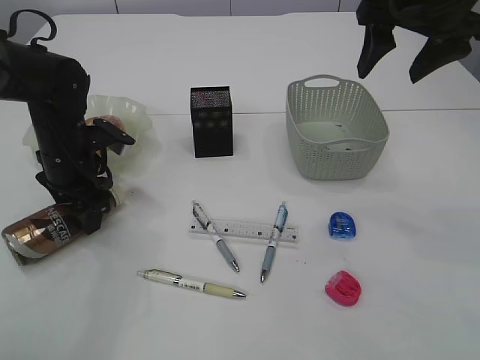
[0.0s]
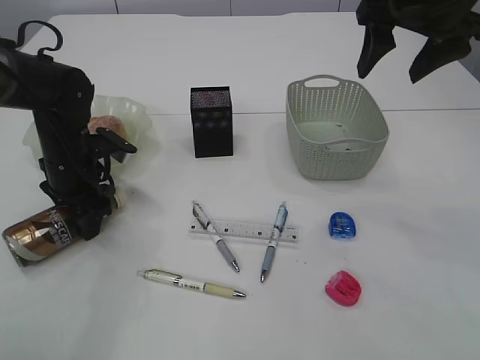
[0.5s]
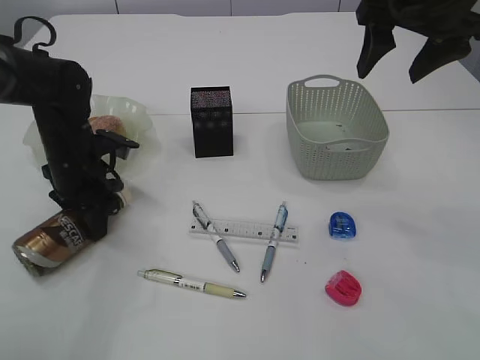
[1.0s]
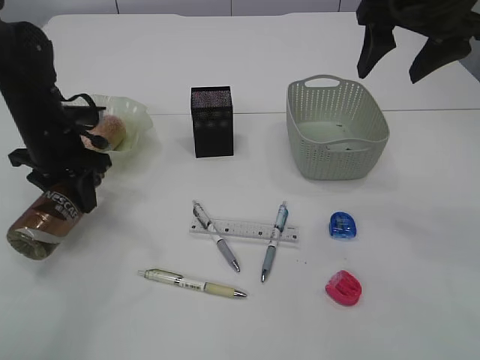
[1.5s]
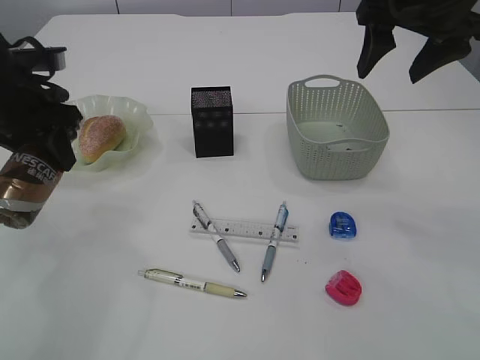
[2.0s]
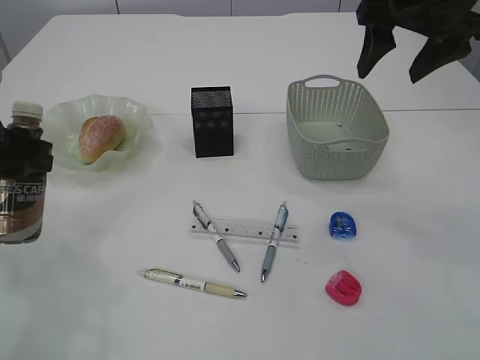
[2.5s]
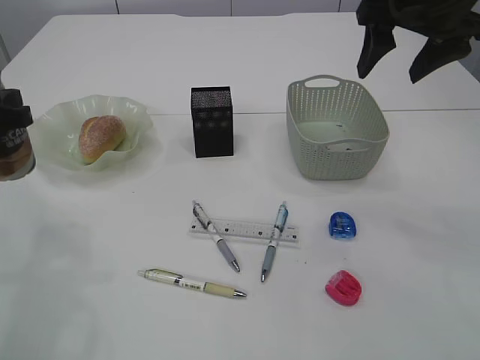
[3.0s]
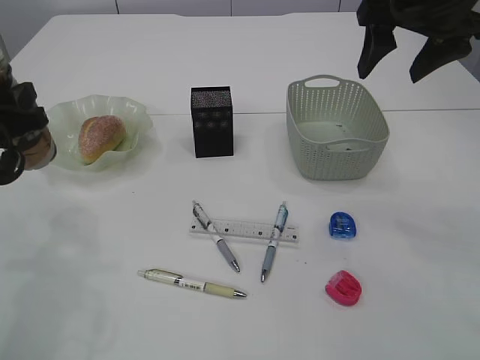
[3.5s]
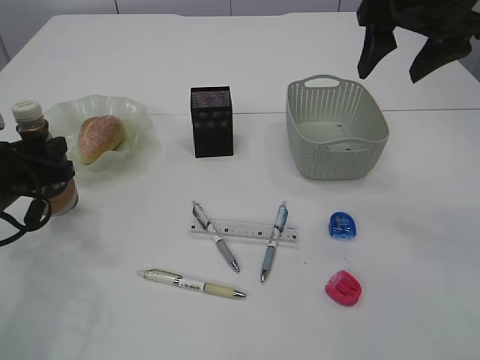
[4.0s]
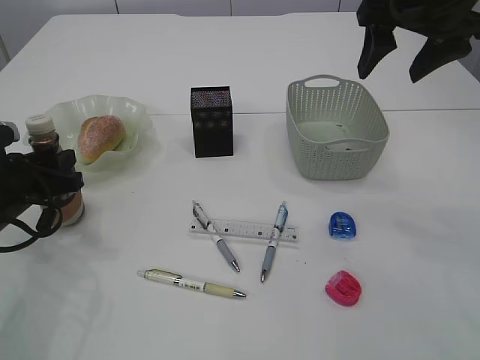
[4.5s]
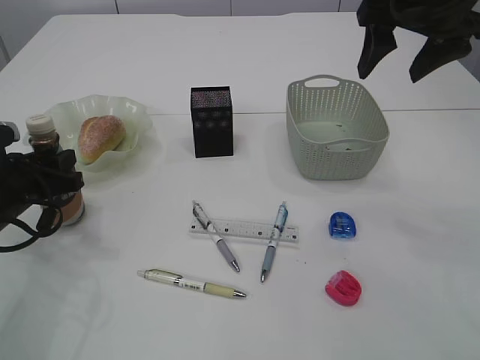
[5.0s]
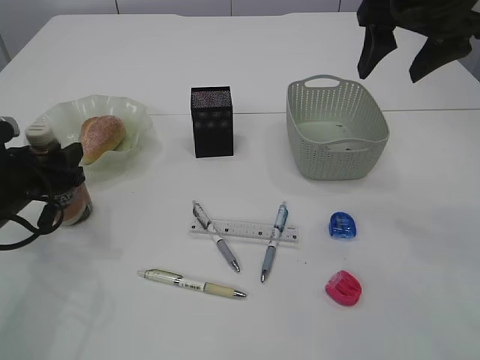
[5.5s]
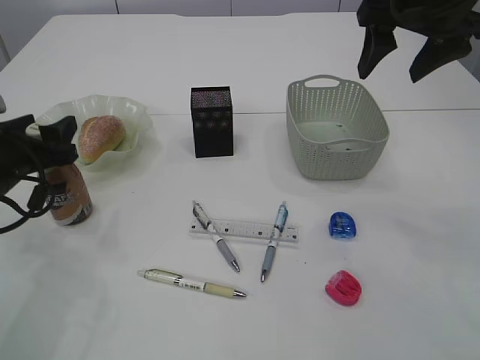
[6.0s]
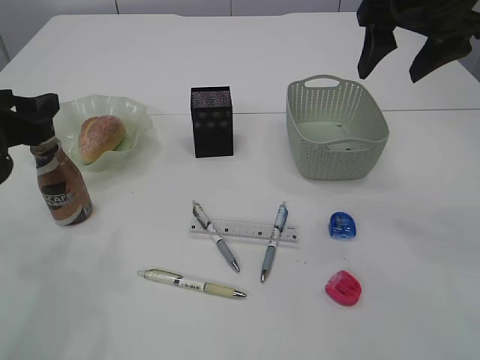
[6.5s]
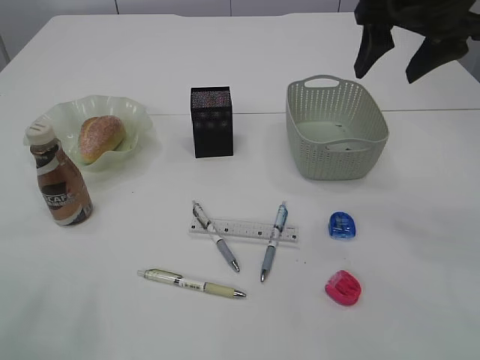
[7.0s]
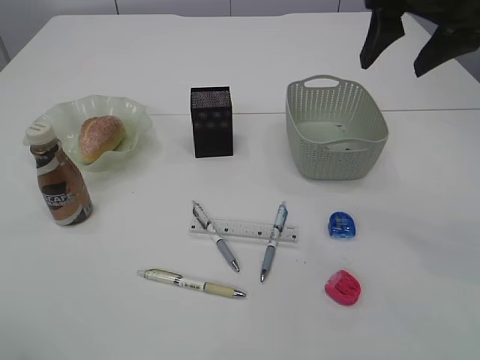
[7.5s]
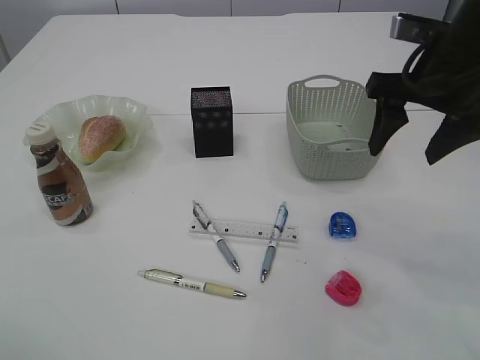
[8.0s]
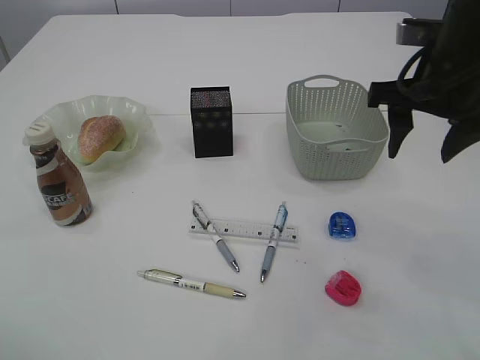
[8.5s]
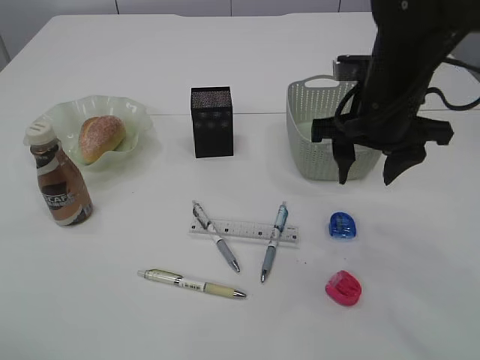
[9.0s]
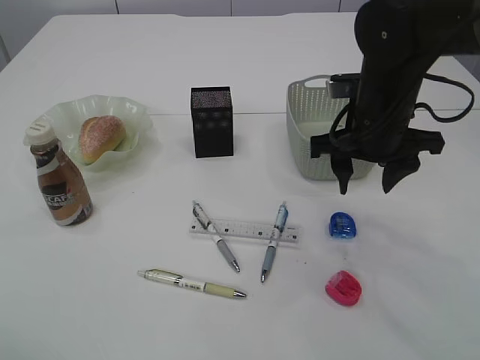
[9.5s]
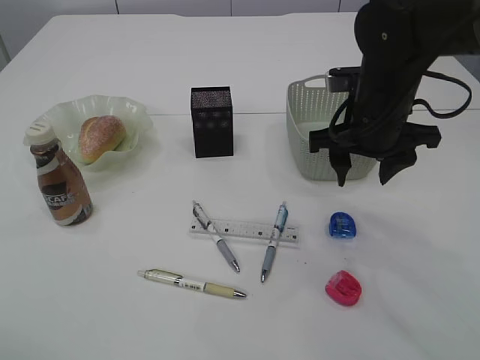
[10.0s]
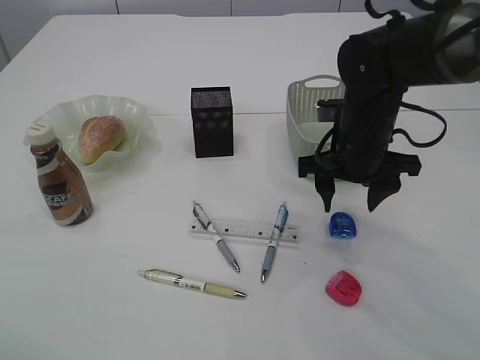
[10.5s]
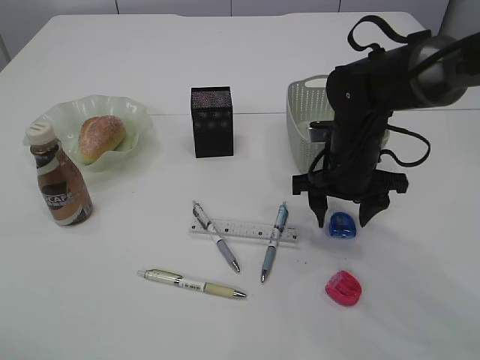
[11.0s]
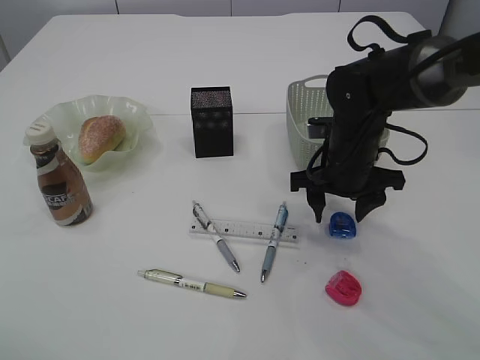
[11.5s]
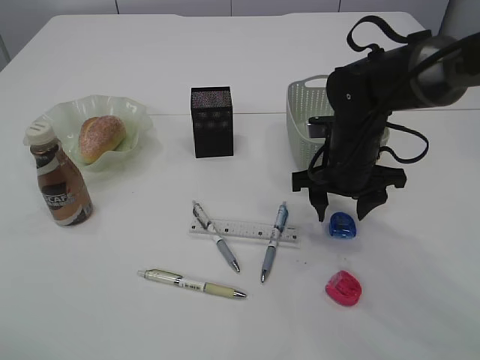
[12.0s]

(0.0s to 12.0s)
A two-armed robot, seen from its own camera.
Step, 2.0s - 6.5s: Place the bottle.
0.0s - 2.0s: The left gripper moves upward, some 10 cm, and closes.
2.0s - 4.0s: The left gripper shifts roughly 15 cm downward and backward.
4.0s - 6.0s: The left gripper opens its fingers.
6.0s - 8.0s: The left gripper is displaced upward and backward by some 25 cm, while the right gripper is displaced downward by approximately 5 cm.
8.0s - 10.0s: The right gripper goes approximately 10 cm downward and to the left.
10.0s - 12.0s: The right gripper is displaced downward by about 5 cm.

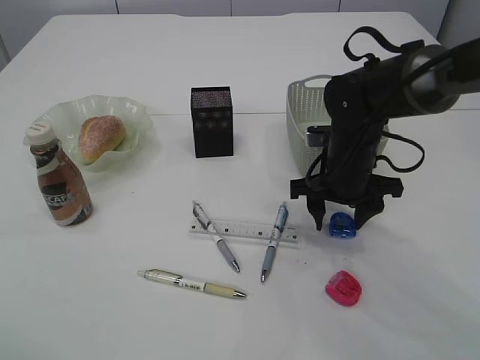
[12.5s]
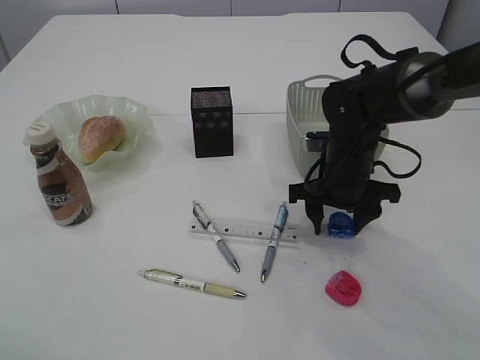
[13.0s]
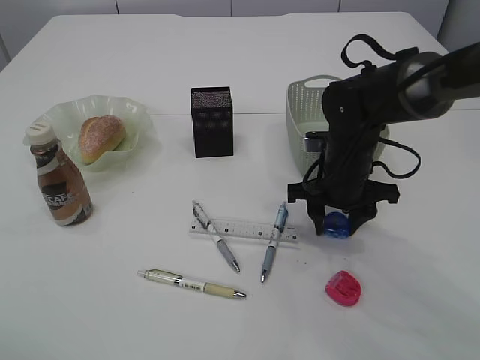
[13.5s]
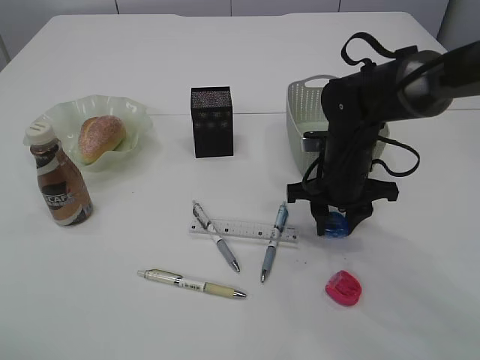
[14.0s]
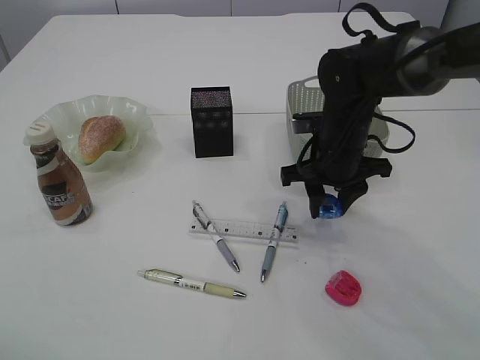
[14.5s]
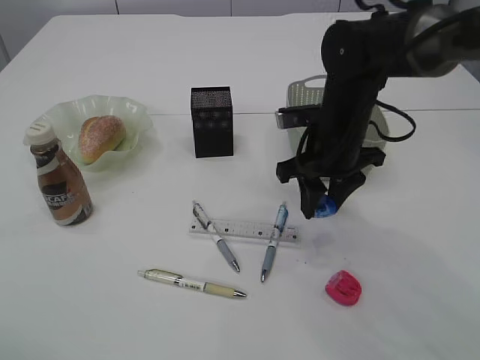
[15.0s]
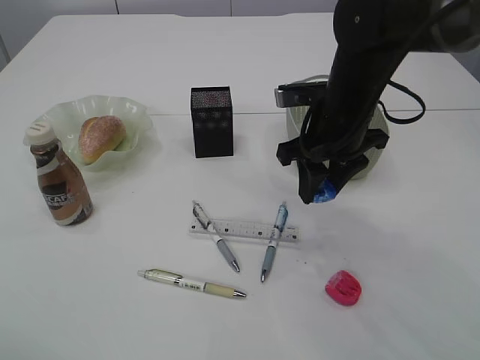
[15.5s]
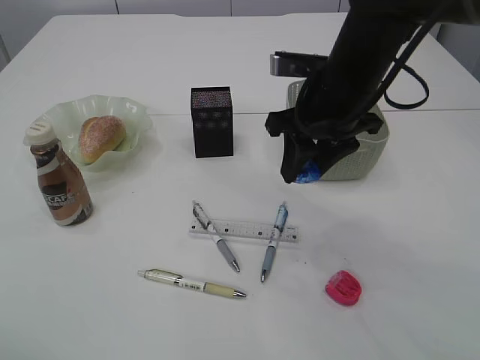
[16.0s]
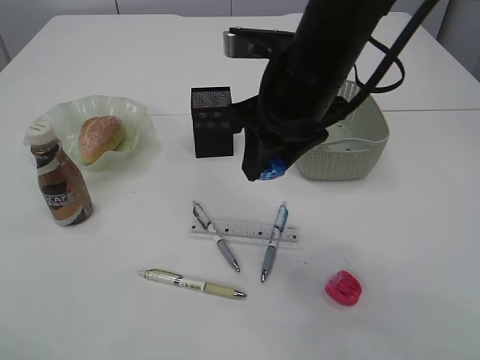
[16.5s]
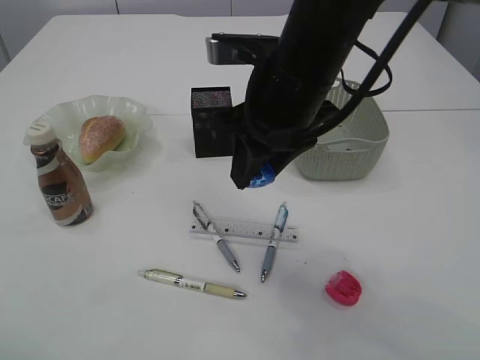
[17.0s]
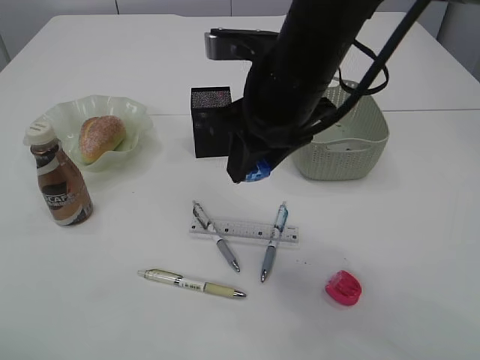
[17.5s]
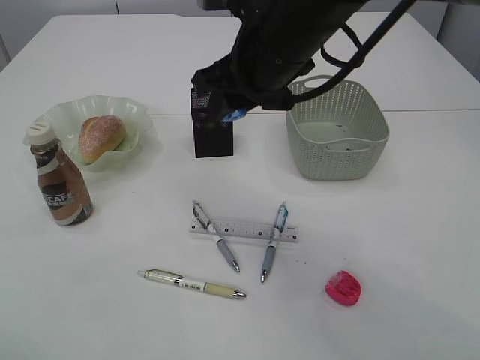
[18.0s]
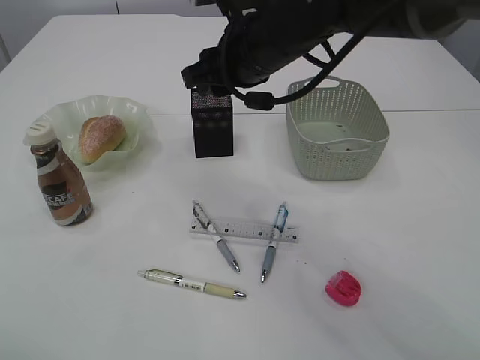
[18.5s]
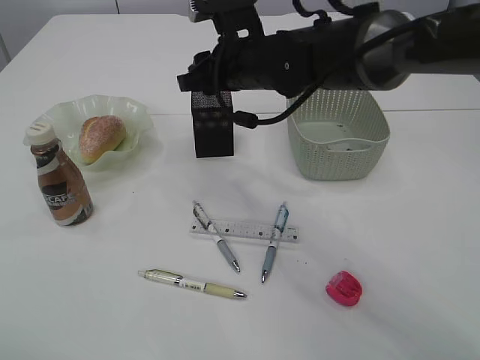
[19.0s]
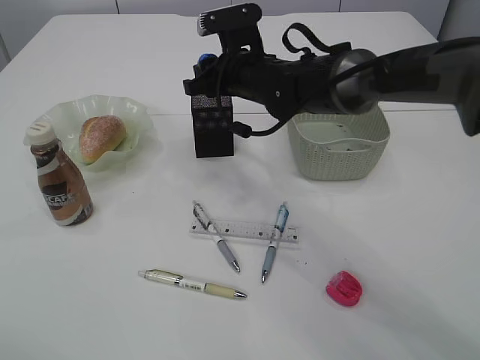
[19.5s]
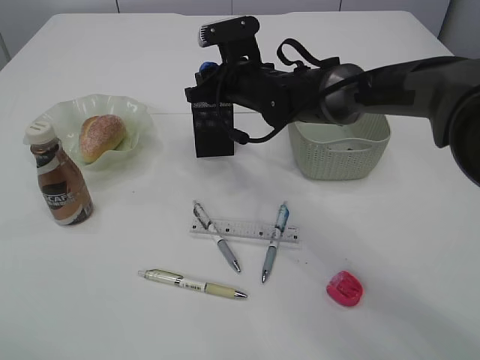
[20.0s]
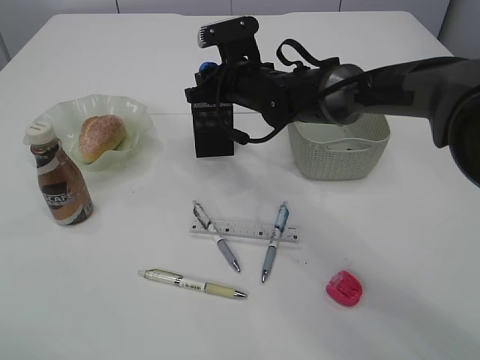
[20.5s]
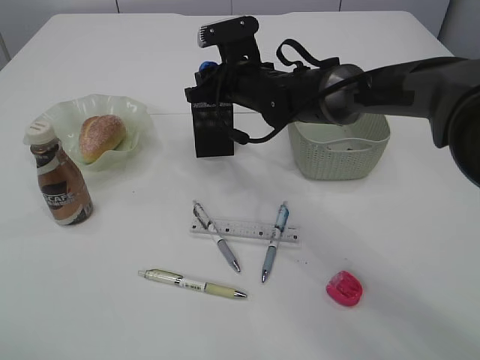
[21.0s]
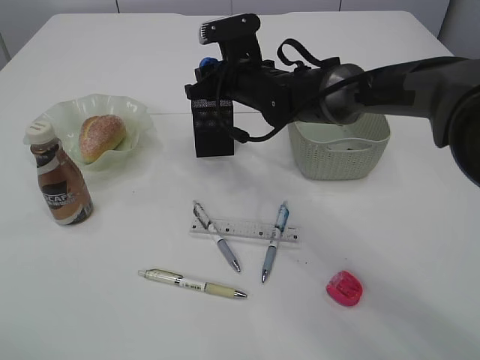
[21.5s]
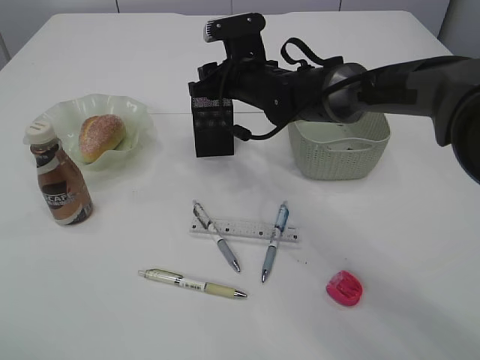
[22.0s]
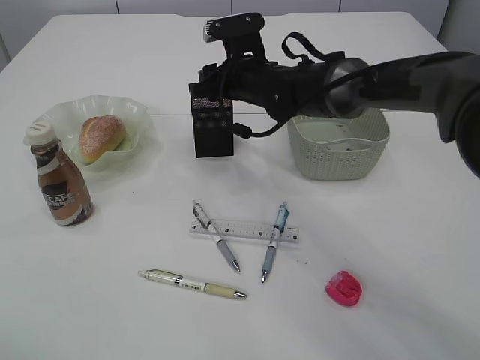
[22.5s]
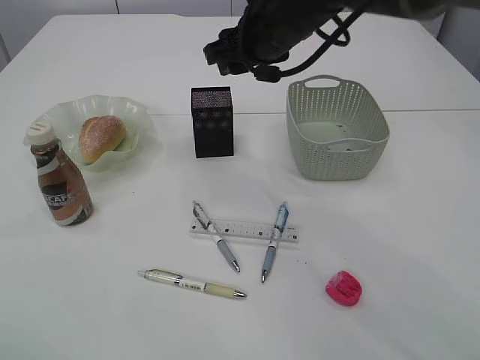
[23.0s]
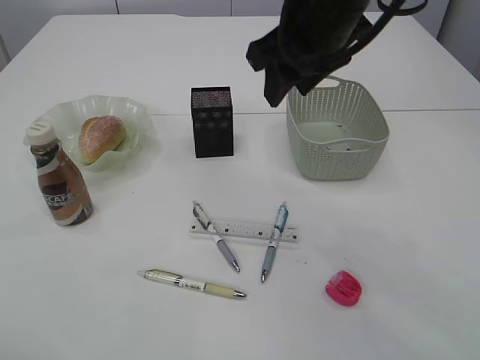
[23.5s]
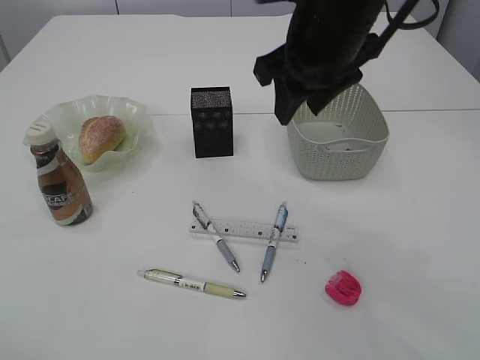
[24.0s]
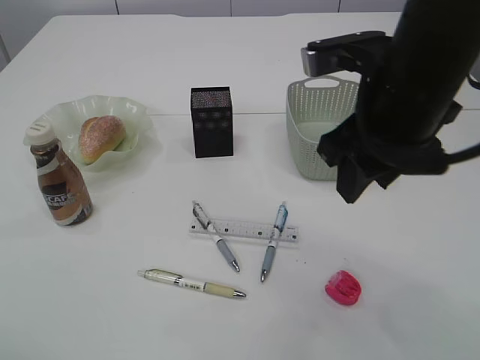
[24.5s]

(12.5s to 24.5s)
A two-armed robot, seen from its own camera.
Step, 12.5s - 15.0s: Pick up the blue pencil sharpener.
Step, 15.5s - 22.5s: Place the blue pencil sharpener into the pen holder.
12.5s - 14.5s: The grippers move only a little.
14.5s - 16.5s: The right gripper heads upward, backward and to the left, covering about 15 cm.
16.5s - 18.5s: The right gripper moves forward, approximately 5 cm.
18.5s - 20.5s: The right gripper moves downward and forward, about 15 cm.
20.5s - 22.5s: The two grippers keep their place.
22.5s - 24.5s: The right gripper is displaced backward, upward and to the right by roughly 25 cm.

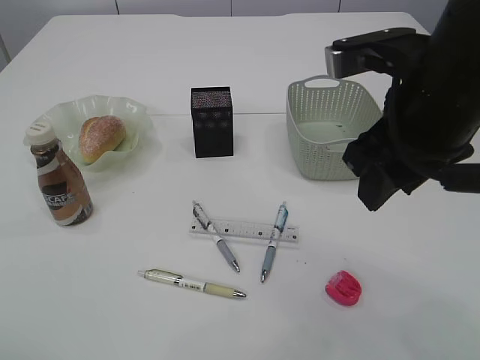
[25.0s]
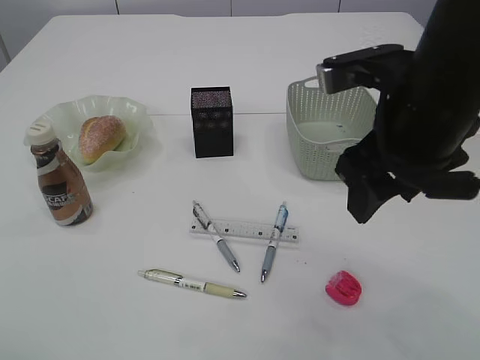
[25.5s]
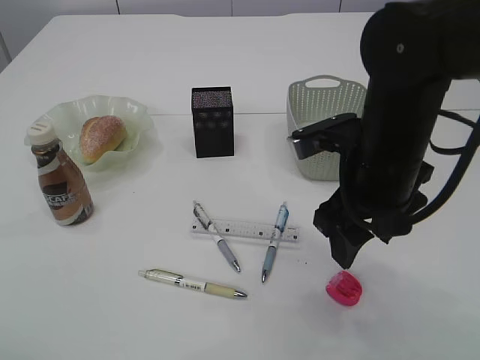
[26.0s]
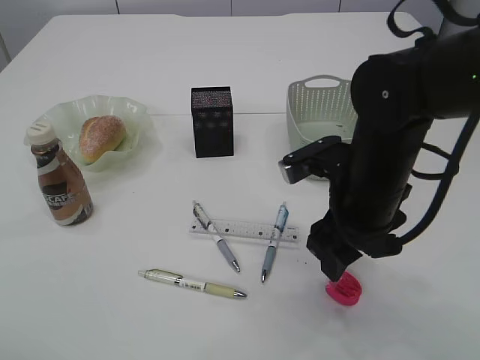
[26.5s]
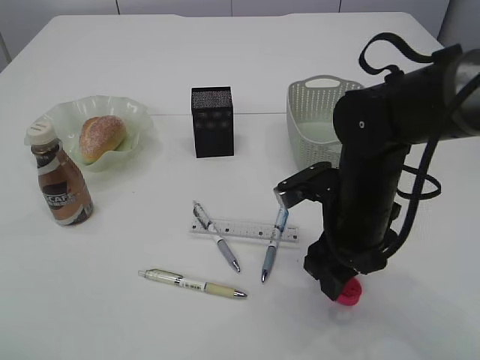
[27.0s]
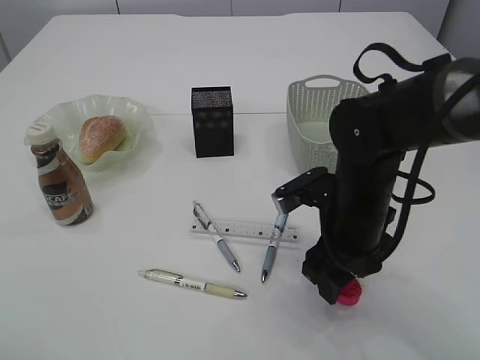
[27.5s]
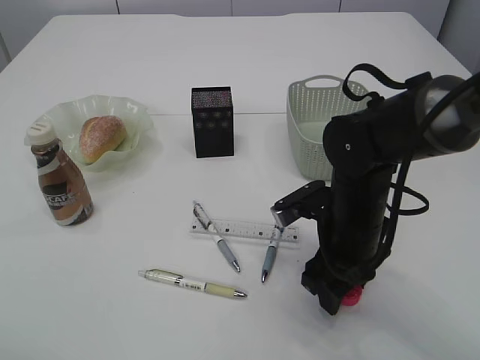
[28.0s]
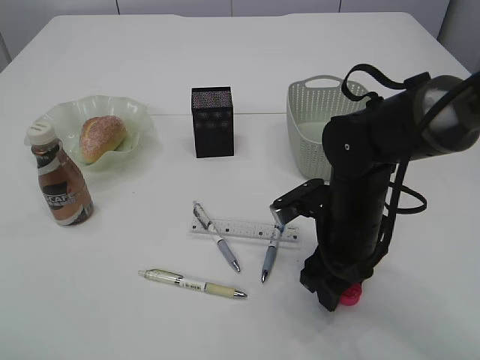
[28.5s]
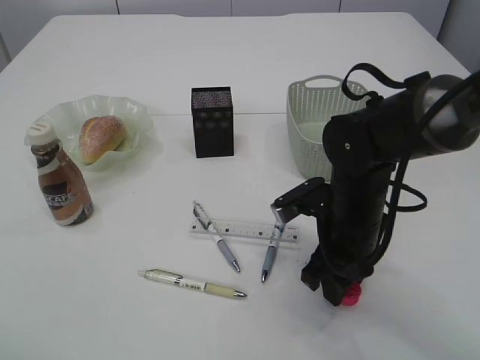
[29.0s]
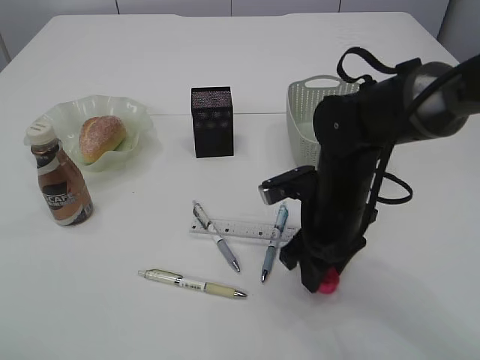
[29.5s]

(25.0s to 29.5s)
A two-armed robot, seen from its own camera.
25.0s - 27.0s: The right gripper moves downward, approximately 15 cm.
27.0s - 29.5s: The grippers stay close to where they were, moving slightly.
